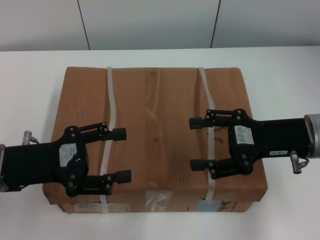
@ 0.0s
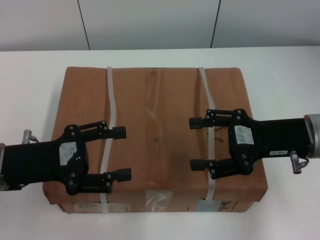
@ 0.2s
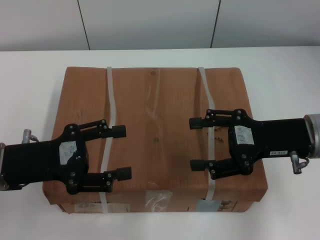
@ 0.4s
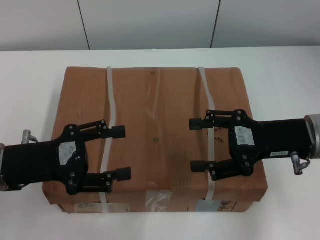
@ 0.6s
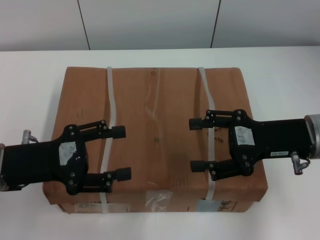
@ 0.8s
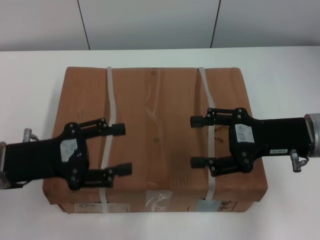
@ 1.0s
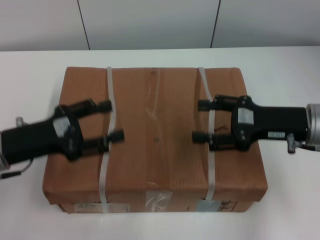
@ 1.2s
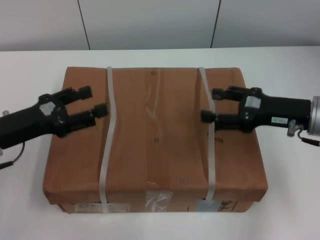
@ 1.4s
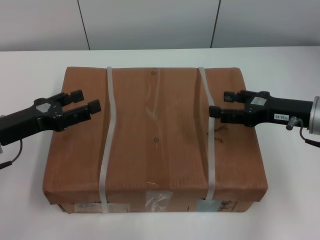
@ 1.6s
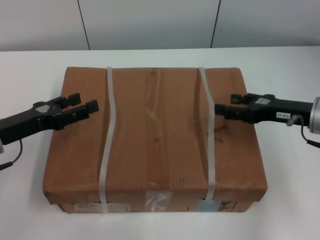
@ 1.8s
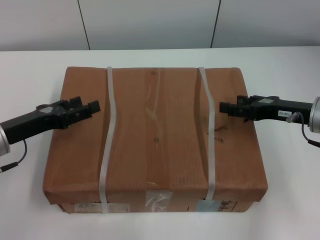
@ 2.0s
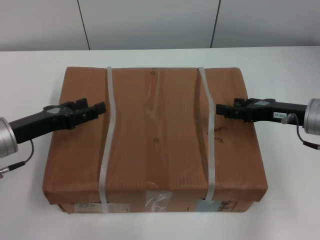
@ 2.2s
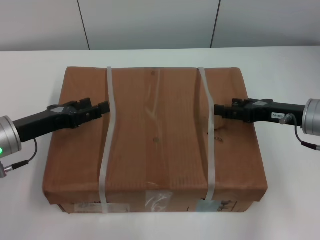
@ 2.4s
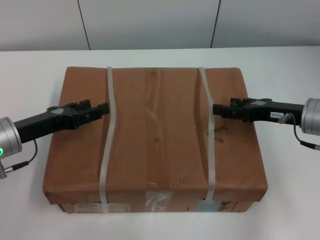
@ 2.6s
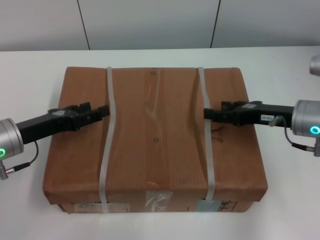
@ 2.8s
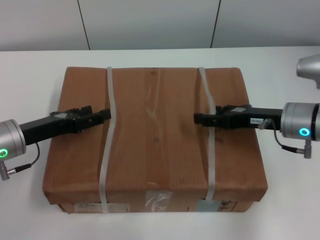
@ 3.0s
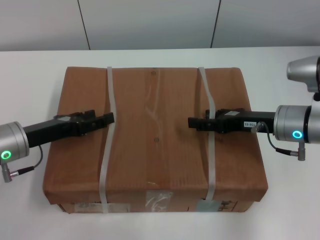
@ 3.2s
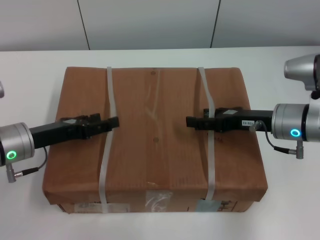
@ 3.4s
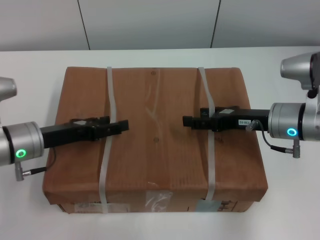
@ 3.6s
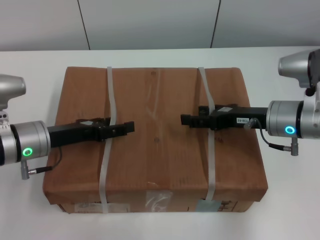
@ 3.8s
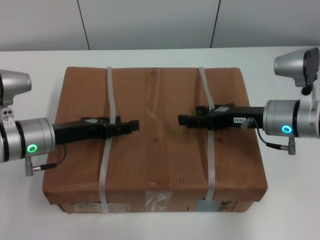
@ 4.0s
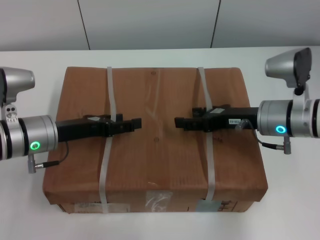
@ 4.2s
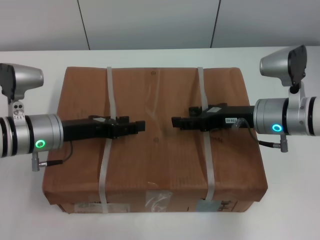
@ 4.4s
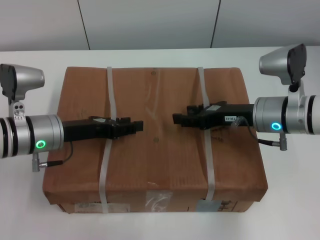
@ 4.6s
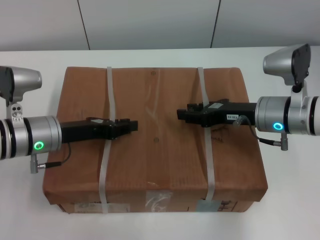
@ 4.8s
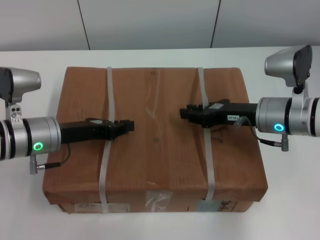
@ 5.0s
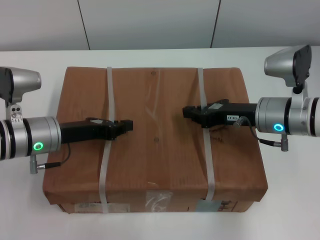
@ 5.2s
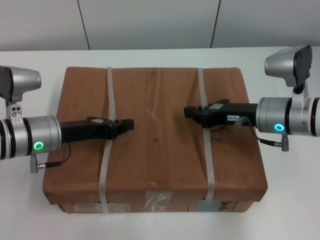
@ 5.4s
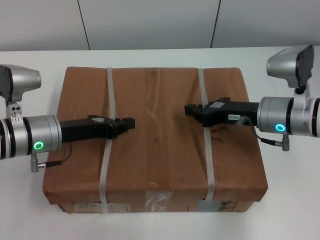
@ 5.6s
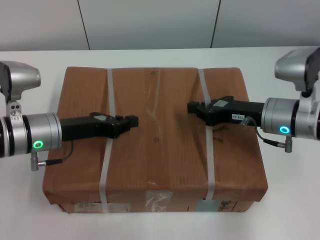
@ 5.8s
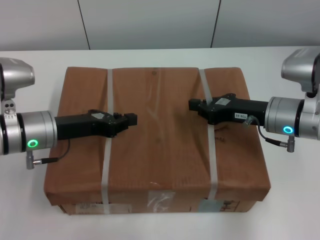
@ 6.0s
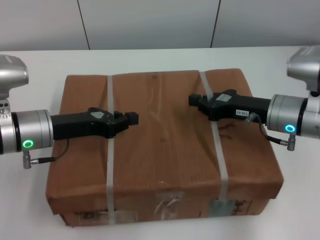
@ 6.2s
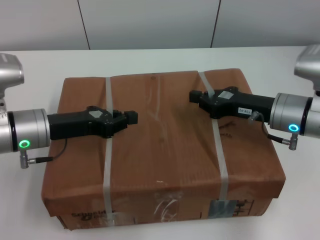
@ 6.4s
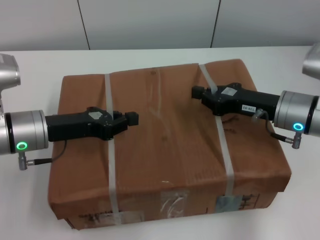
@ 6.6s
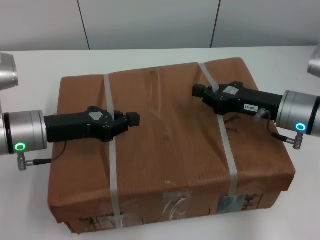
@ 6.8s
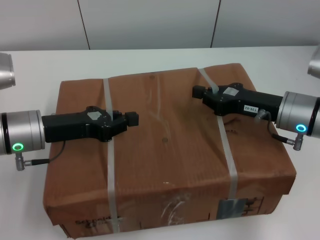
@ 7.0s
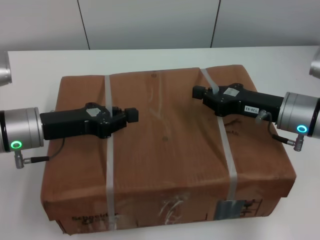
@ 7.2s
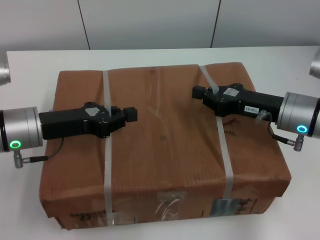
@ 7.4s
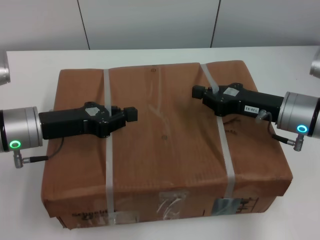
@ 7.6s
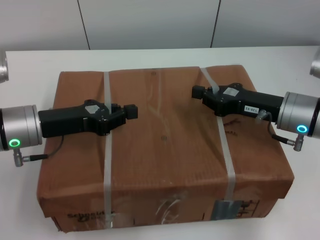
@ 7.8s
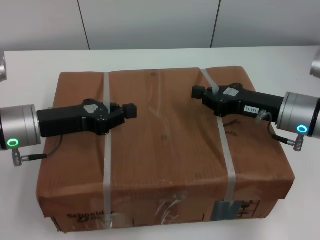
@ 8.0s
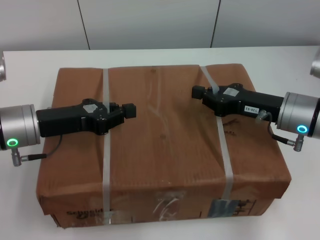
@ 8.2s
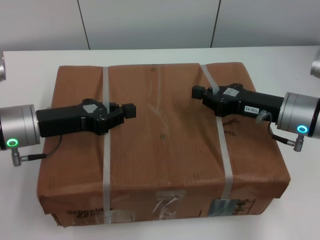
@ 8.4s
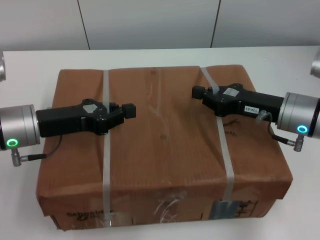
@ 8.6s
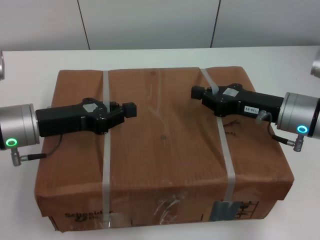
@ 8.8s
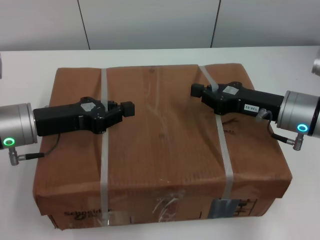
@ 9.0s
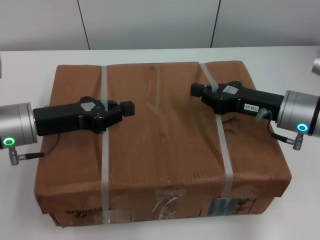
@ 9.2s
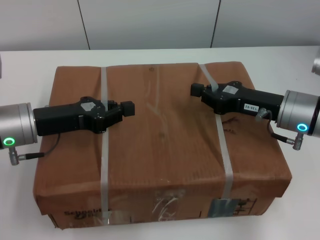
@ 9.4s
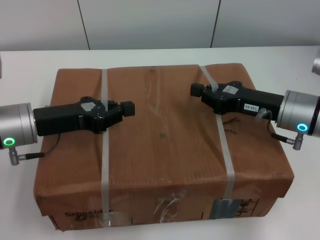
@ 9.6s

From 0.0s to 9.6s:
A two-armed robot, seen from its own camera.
Task of the whole recording: pick up the box from the table with both arms.
Step, from 0.0s to 5.4s: Grasp the bandage with left gripper.
Step, from 0.0s to 5.4s: Grasp the bandage with right gripper.
Step, from 5.6s to 7.2s: Lift the box with left gripper.
Step, from 5.6s to 7.2s: Lift the box with right gripper.
From 0.0s to 1.6s: The left gripper ends up approximately 5 cm from where it was, while the right gripper moves about 5 cm.
From 1.6s to 3.2s: The grippers move only a little.
From 3.2s to 4.8s: The right gripper closes up. Meanwhile the left gripper closes up.
From 4.8s to 6.4s: The right gripper closes, while the left gripper closes up.
From 6.4s to 8.0s: There are only small adjustments of the grippers.
From 8.0s to 9.6s: Both grippers stay put.
